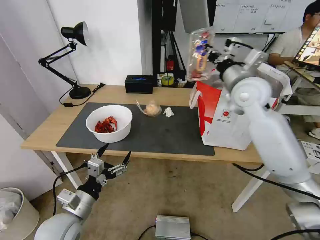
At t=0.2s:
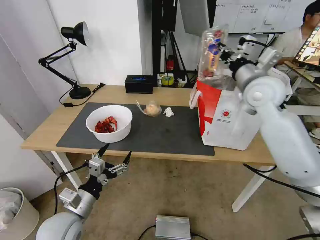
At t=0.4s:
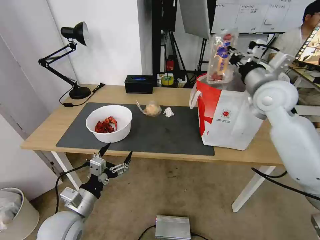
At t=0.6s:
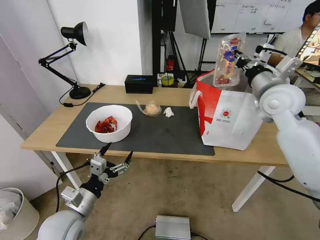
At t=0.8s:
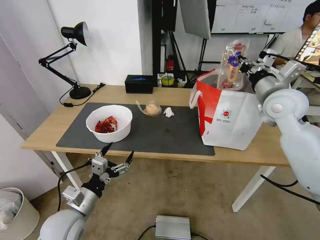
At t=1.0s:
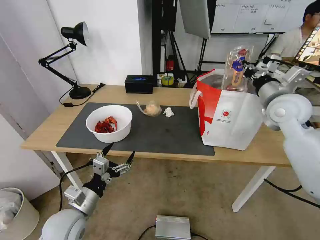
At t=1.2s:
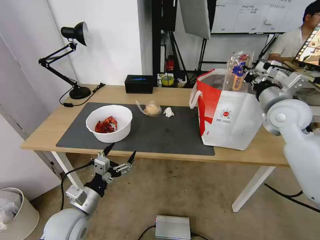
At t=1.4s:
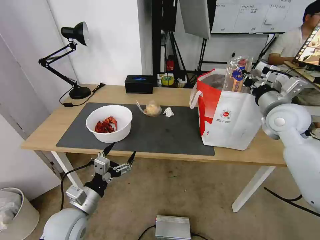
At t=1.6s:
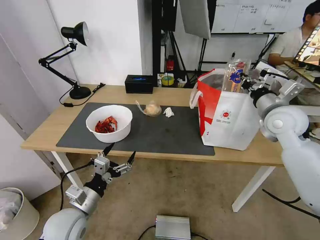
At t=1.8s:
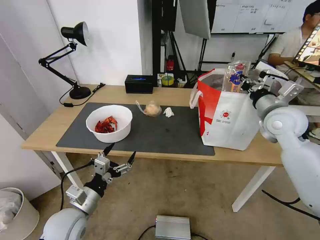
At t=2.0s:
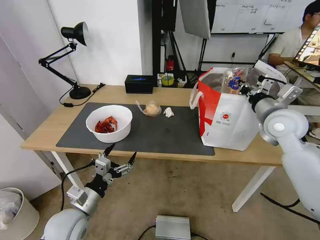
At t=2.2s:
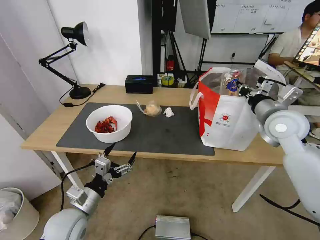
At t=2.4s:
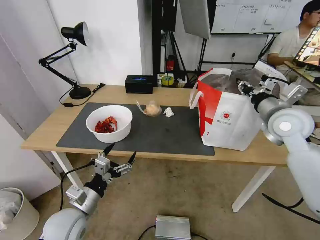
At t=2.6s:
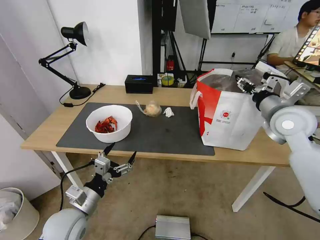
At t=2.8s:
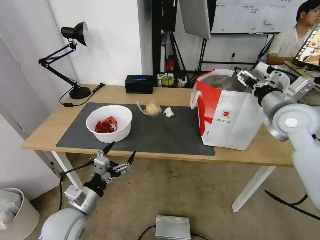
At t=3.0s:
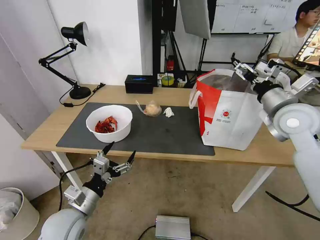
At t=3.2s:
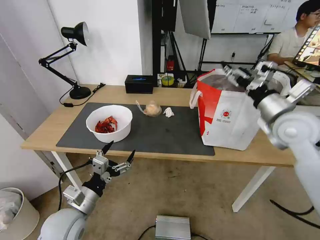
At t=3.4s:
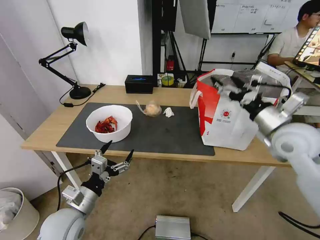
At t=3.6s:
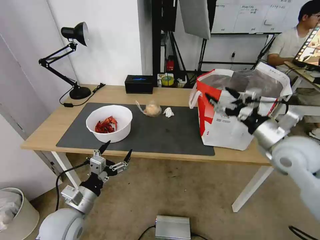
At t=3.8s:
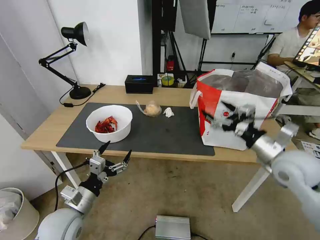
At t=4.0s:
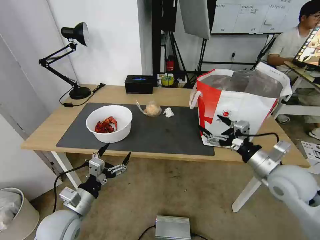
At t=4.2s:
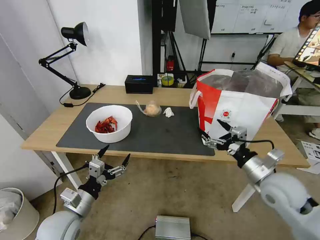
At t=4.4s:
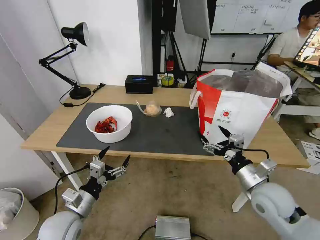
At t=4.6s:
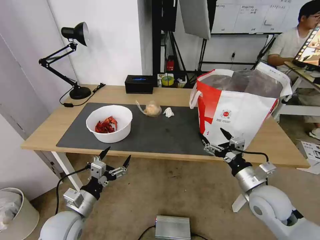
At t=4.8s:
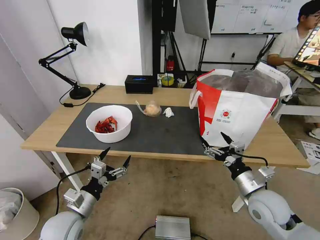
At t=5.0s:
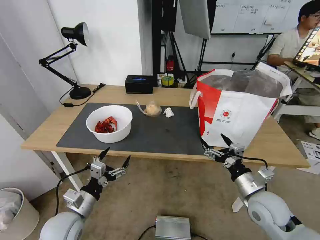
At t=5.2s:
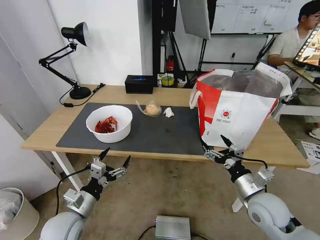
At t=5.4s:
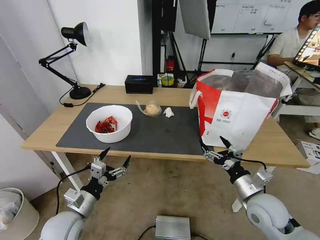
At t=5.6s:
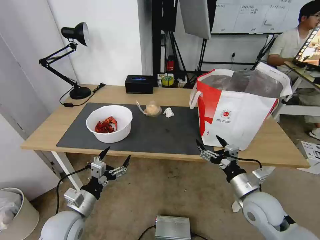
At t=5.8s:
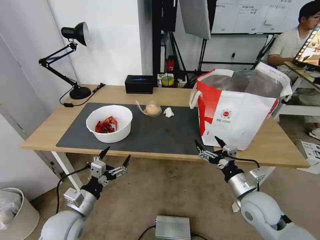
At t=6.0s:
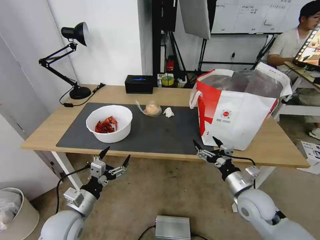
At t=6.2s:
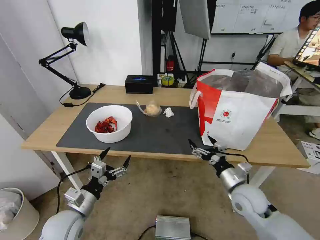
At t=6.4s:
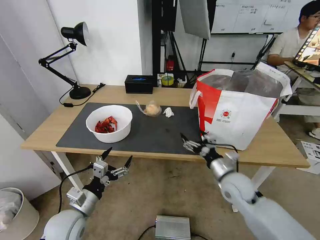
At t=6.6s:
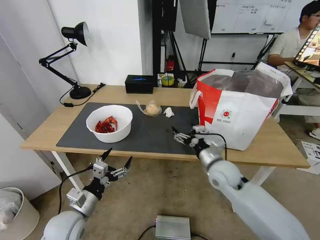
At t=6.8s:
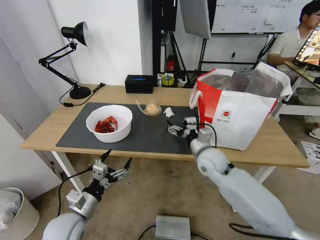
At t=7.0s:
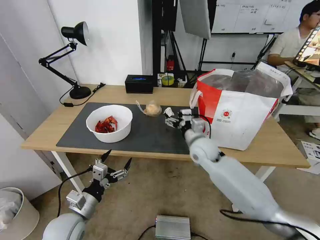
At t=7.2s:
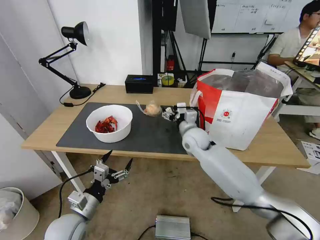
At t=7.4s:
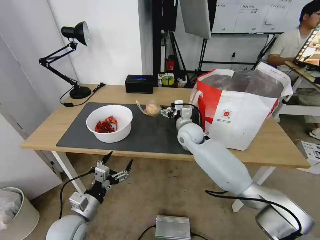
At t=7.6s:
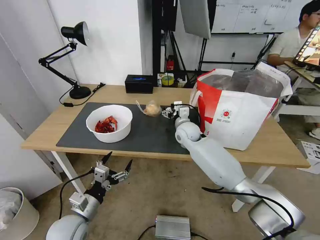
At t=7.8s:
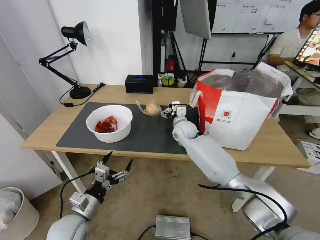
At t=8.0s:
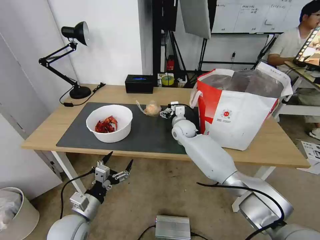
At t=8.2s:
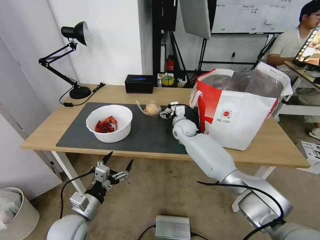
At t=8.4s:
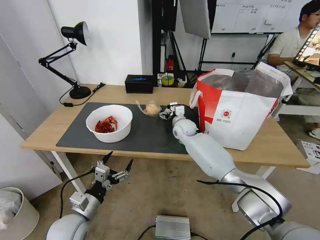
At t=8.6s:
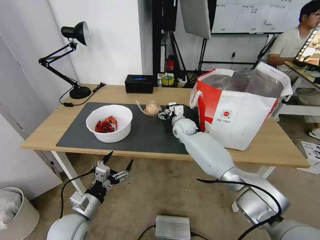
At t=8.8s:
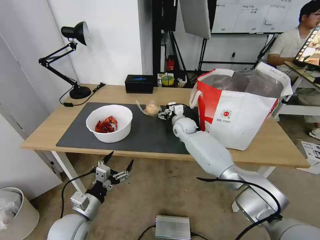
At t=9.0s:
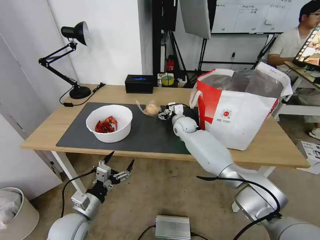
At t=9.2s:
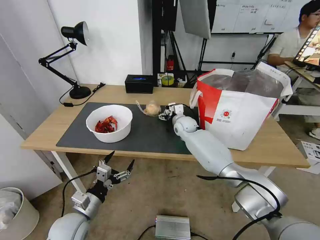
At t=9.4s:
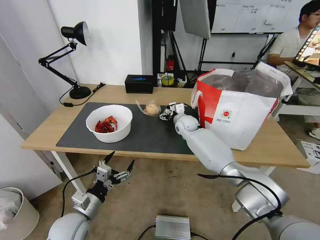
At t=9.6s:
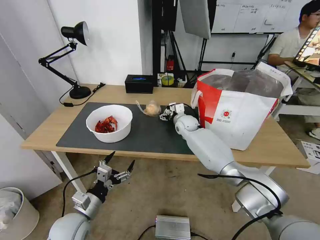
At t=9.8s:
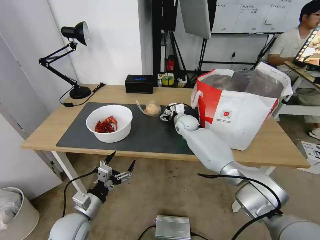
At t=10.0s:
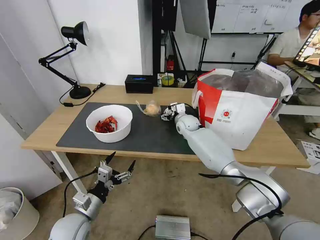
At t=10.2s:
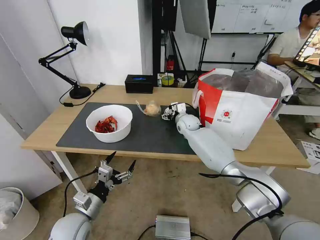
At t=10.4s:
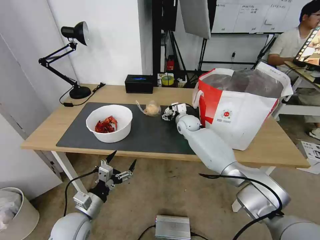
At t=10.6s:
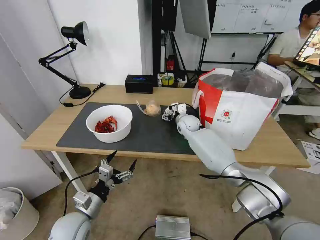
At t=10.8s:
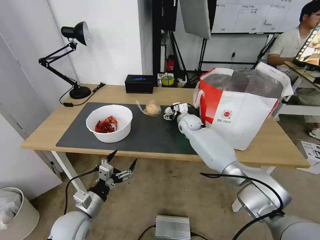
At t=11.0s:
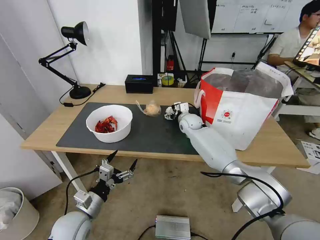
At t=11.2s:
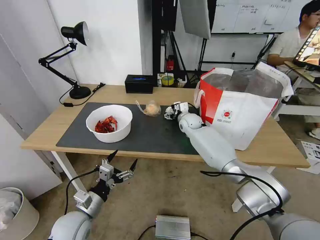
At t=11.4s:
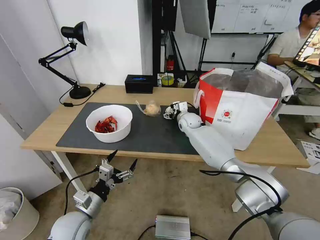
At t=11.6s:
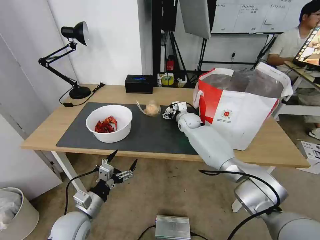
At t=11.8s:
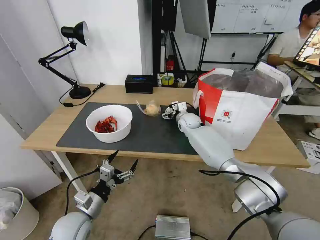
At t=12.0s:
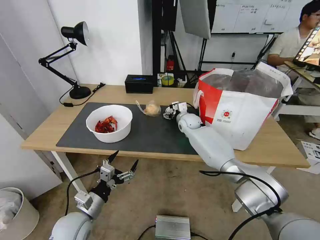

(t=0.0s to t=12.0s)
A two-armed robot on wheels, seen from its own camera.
Task of the whole recording: Pick up the trash from the table and place it into the takeout bag.
t=0.0s - t=1.6s: The right gripper moves to the right, downward and backward, some 15 cm.
t=1.6s - t=3.0s: The right gripper opens.
t=3.0s - t=4.4s: The right gripper goes roughly 25 cm downward and backward.
t=4.4s - t=6.0s: The right gripper shifts about 5 cm downward.
t=6.0s - t=7.6s: The right gripper travels forward and to the left by some 30 cm.
t=7.6s - t=9.0s: The right gripper moves forward, approximately 5 cm.
t=9.0s - t=12.0s: There are only small adjustments of the grippers.

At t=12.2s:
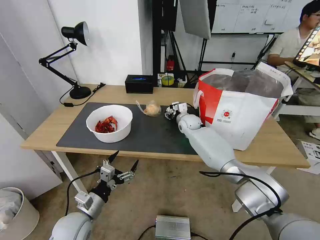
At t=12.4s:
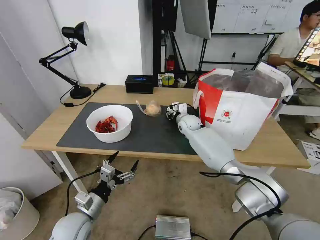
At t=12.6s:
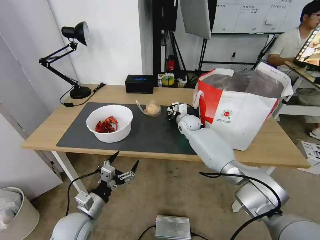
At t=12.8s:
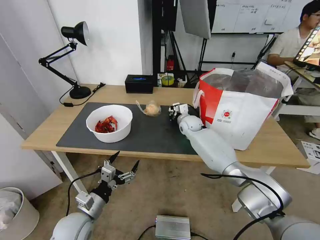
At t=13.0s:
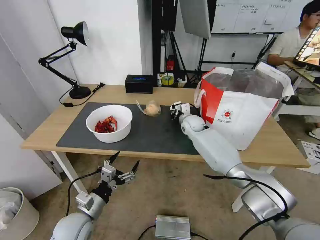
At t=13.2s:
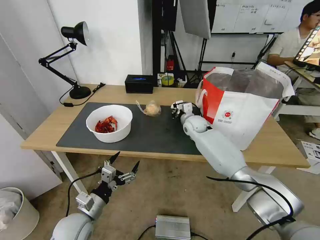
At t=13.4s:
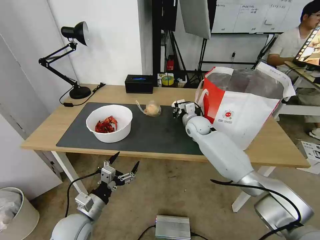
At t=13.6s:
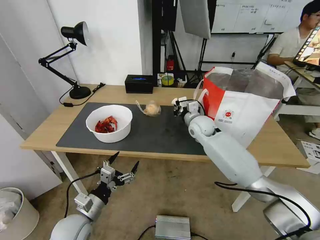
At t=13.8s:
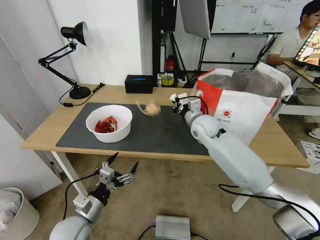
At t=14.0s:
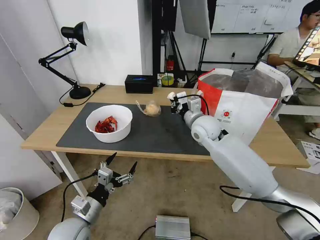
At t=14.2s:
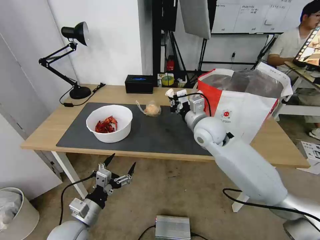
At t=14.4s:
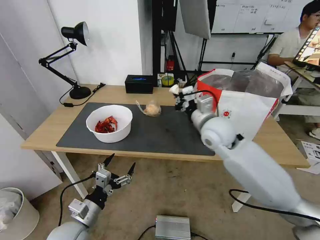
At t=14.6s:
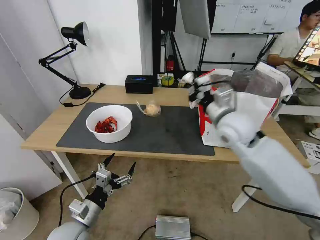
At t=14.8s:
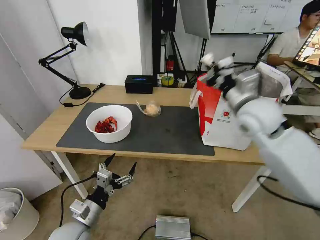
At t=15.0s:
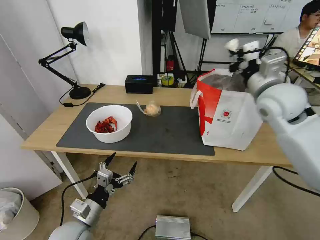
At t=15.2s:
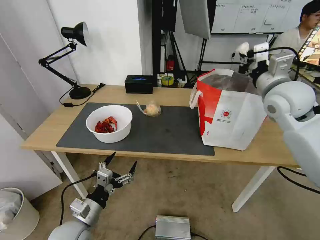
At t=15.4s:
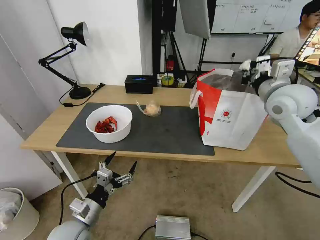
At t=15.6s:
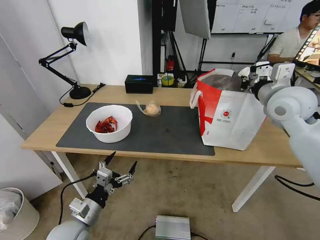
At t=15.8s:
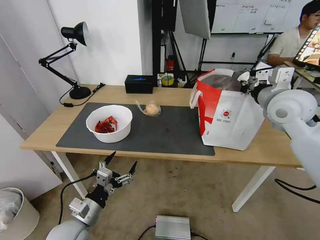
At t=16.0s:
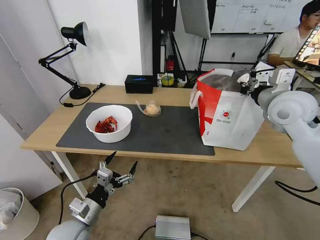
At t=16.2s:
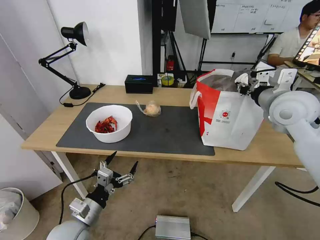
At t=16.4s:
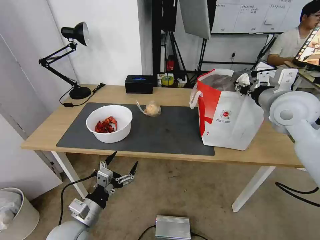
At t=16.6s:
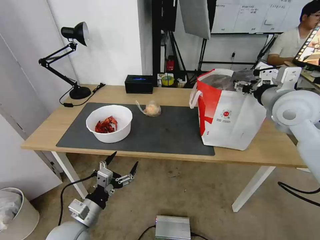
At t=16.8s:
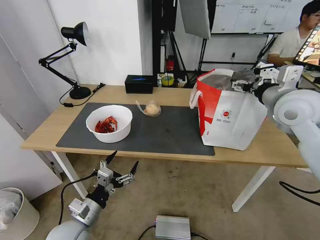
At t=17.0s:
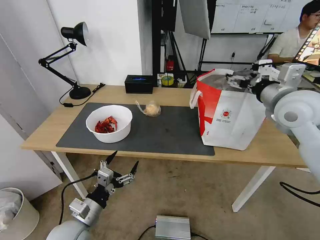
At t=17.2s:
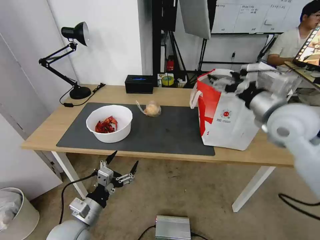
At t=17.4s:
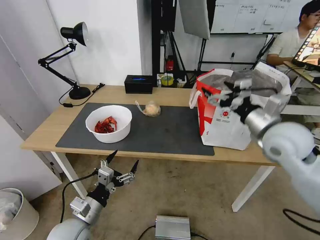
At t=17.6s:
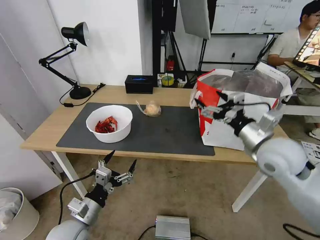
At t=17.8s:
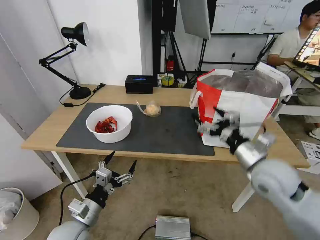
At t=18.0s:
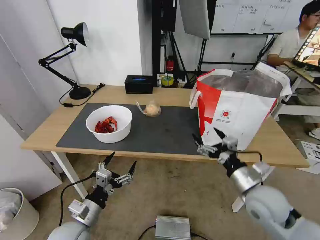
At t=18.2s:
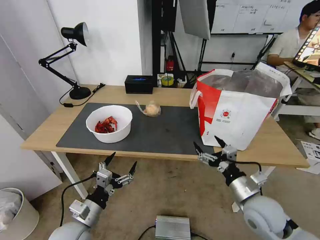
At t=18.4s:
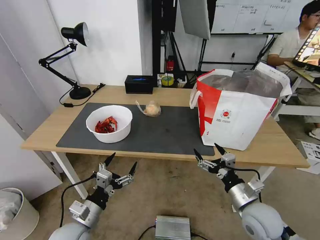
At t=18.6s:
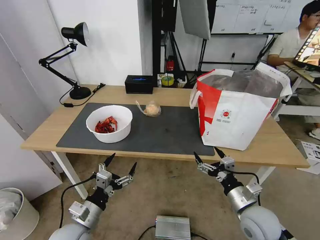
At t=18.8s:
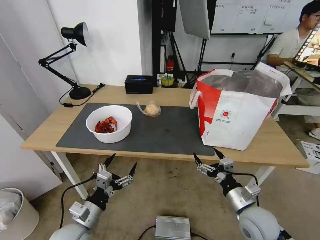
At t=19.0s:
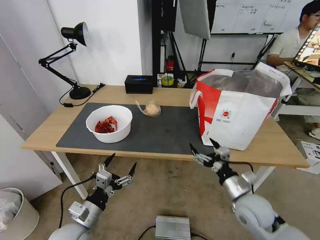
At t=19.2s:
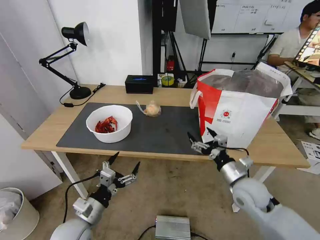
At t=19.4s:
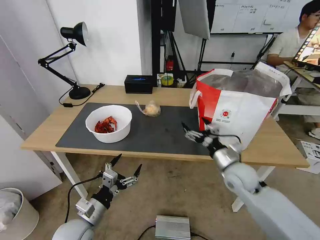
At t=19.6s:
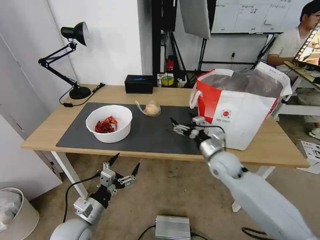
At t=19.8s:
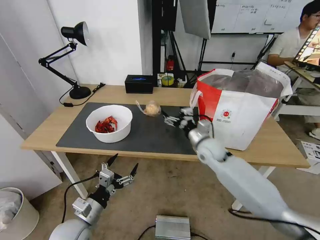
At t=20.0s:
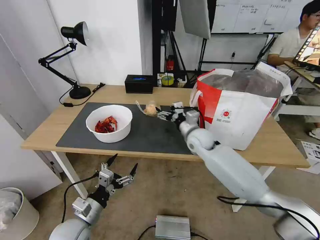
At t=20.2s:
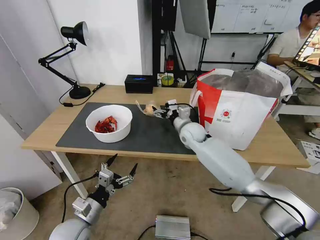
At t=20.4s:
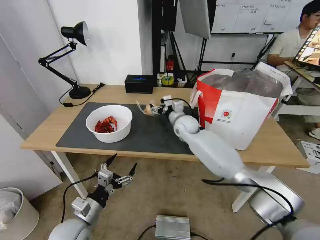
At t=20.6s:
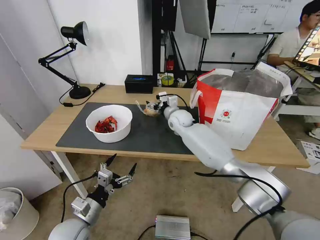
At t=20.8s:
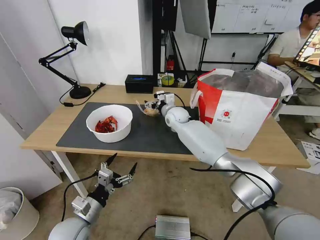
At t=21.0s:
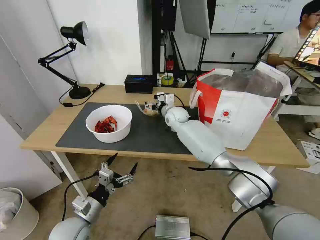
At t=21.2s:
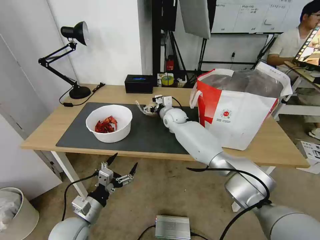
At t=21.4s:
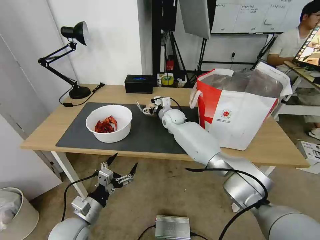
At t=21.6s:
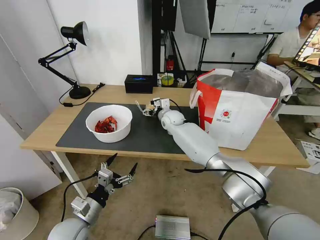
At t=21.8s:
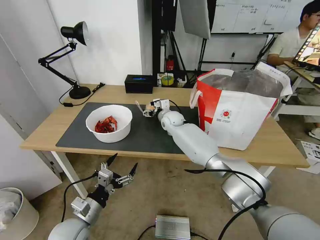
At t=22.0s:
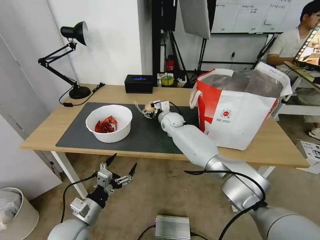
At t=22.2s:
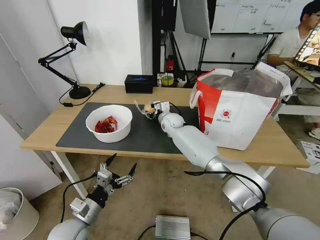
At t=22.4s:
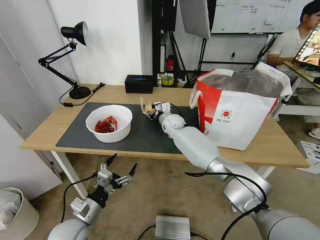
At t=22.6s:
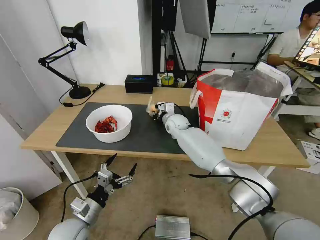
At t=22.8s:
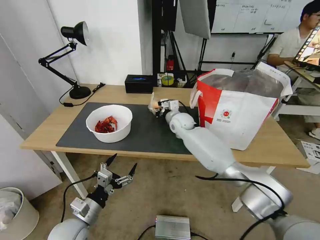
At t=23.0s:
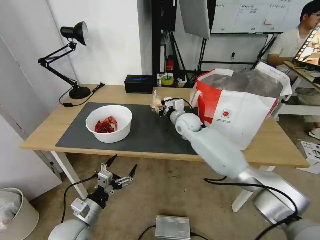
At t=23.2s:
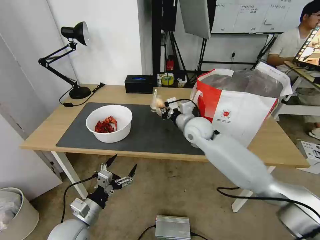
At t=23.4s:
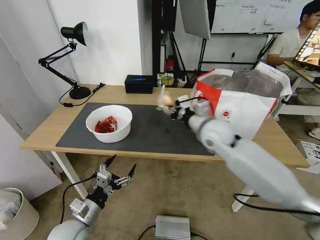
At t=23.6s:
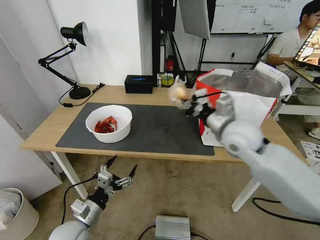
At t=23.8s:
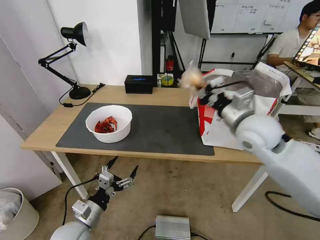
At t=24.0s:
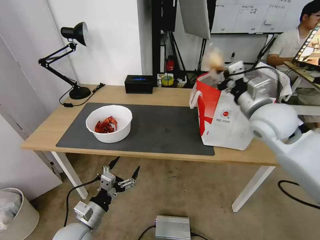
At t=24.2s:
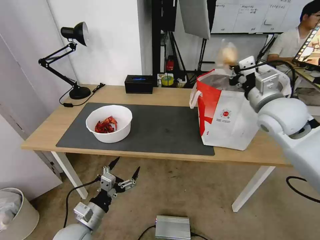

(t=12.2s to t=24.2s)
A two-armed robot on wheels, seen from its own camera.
Task of the whole recording: Pick up the trash from the table and place it into the takeout bag.
t=12.2s - t=13.8s: The right gripper is displaced backward and upward by approximately 15 cm, and closes up.
t=13.8s - t=15.2s: The right gripper moves upward, to the right and backward, about 25 cm.
t=15.2s - t=16.6s: The right gripper opens up.
t=16.6s - t=18.2s: The right gripper travels downward and backward by roughly 30 cm.
t=18.2s - t=19.8s: The right gripper shifts some 20 cm forward and to the left.
t=19.8s - t=21.2s: The right gripper goes approximately 20 cm forward and to the left.
t=21.2s - t=22.6s: The right gripper closes up.
t=22.6s - t=24.2s: The right gripper shifts approximately 35 cm to the right, upward and backward.
